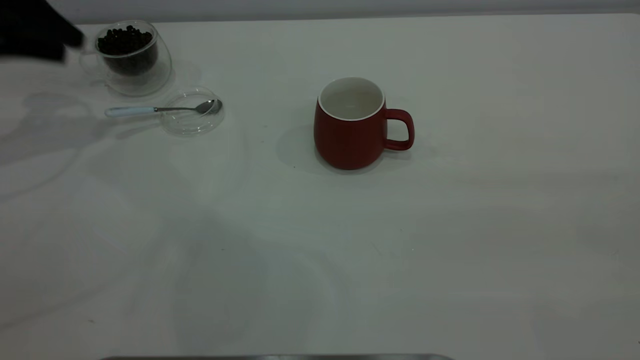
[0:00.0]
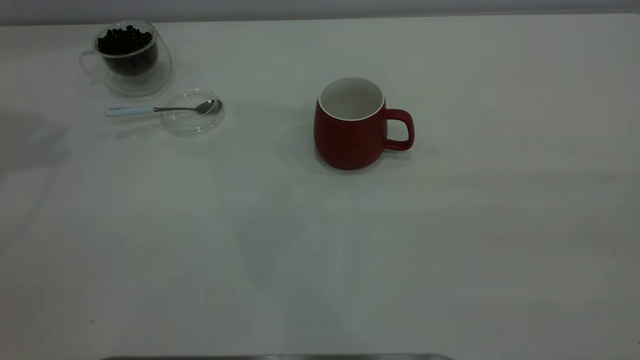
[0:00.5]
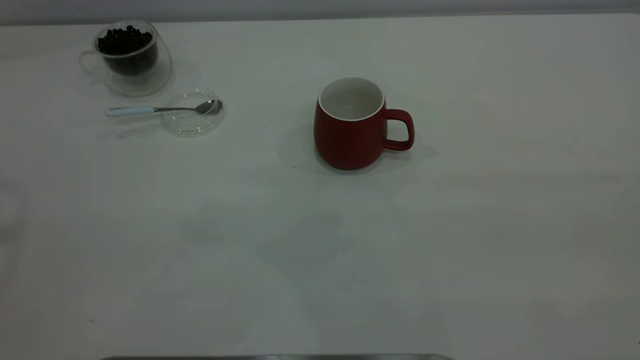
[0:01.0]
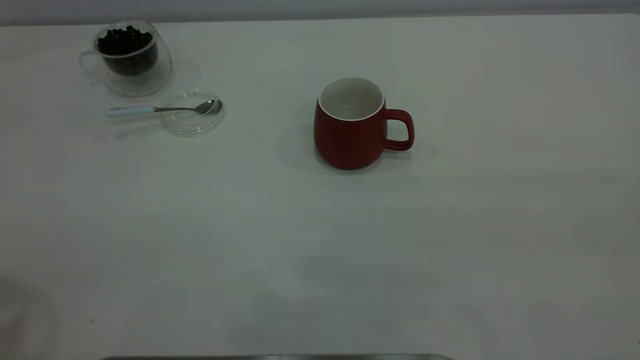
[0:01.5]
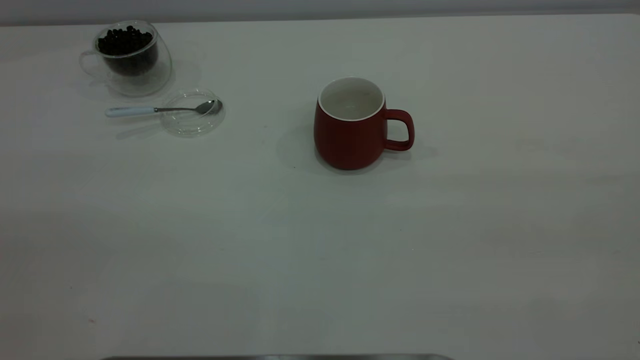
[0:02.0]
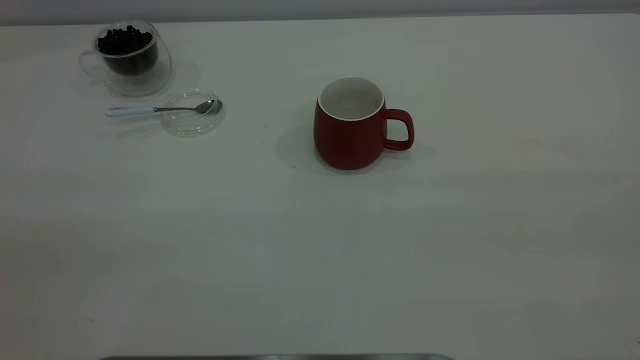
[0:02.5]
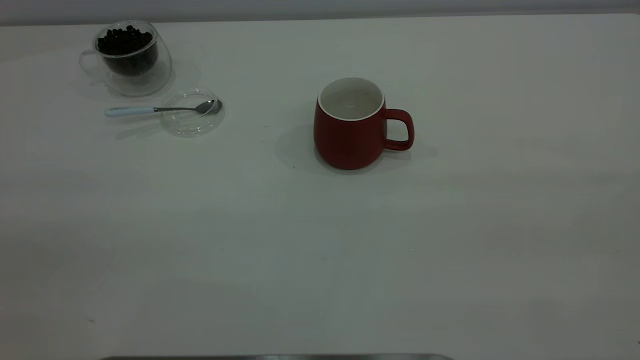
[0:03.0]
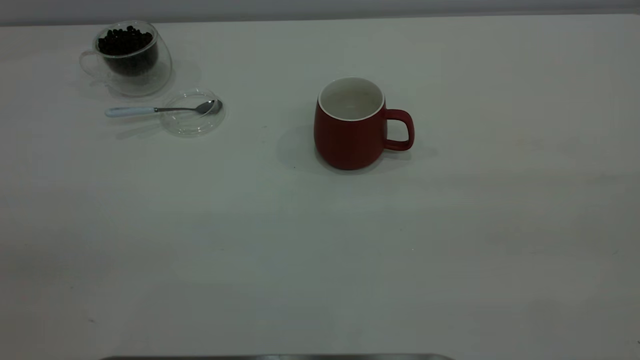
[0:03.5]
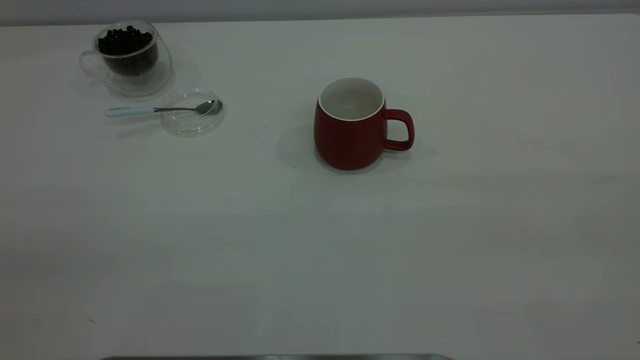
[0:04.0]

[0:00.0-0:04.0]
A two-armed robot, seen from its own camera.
Task of the whole recording: the right gripper place the red cup in the center of the table, the left gripper take the blue spoon from the cup lid and scoop out the coffee beans from the coffee cup and put them into the red cup, the left gripper put the spoon back into the cup lid.
0:00.0 to 0:02.0: The left gripper travels backward and upward by approximately 40 cm.

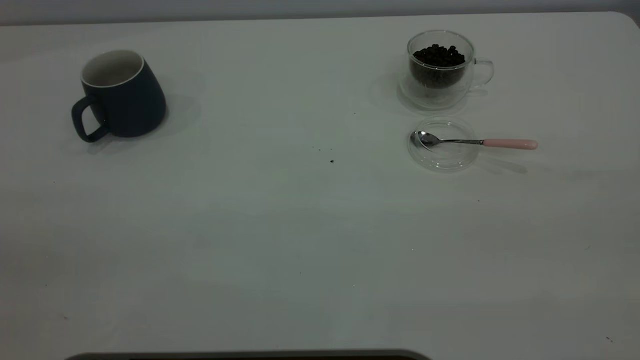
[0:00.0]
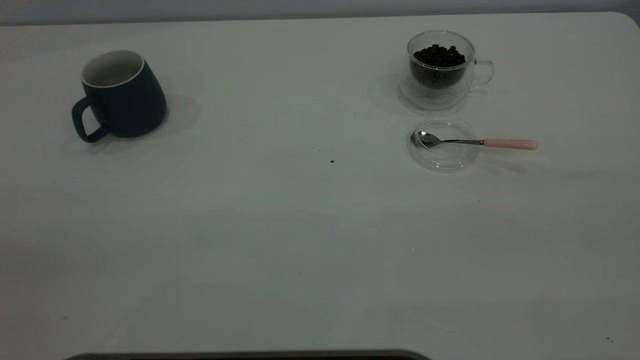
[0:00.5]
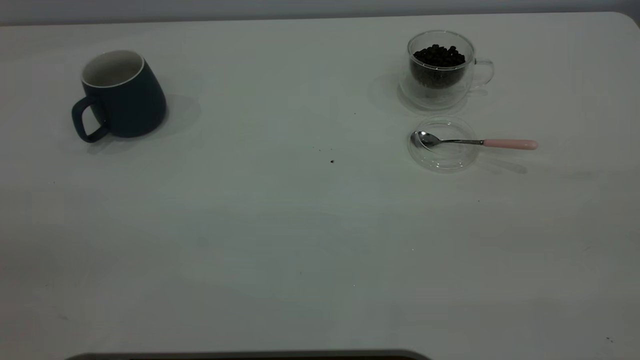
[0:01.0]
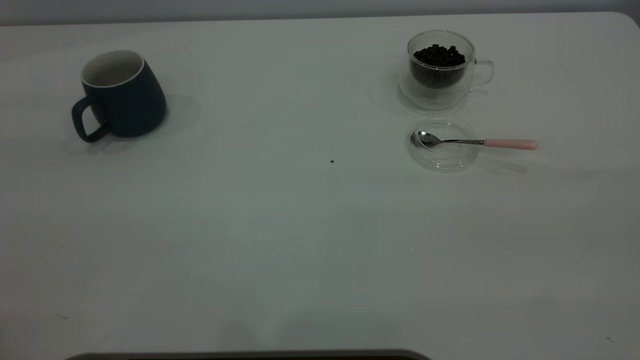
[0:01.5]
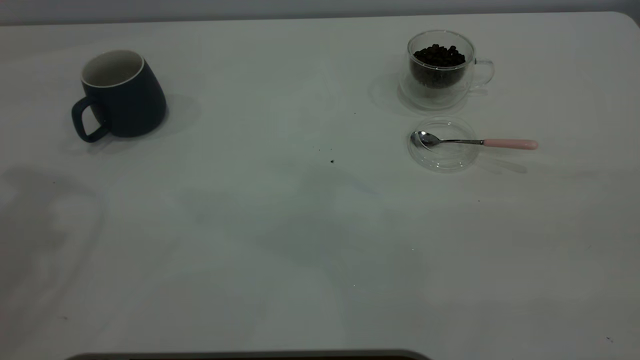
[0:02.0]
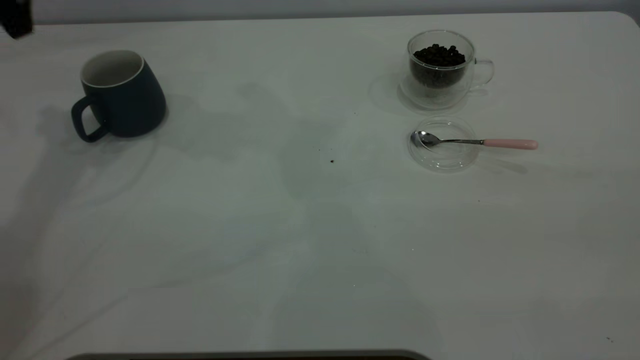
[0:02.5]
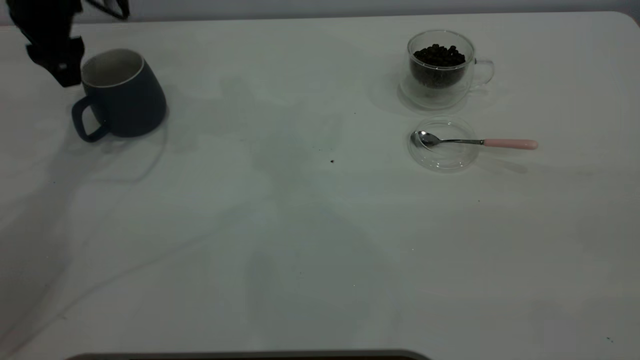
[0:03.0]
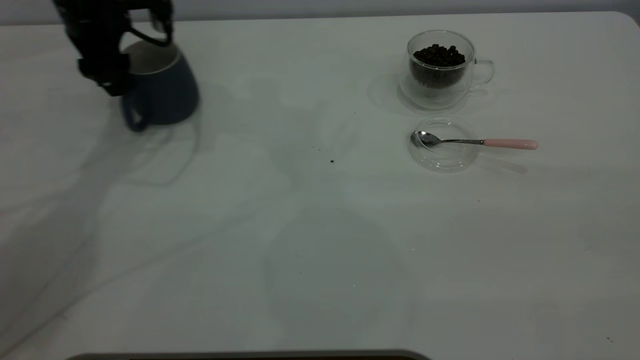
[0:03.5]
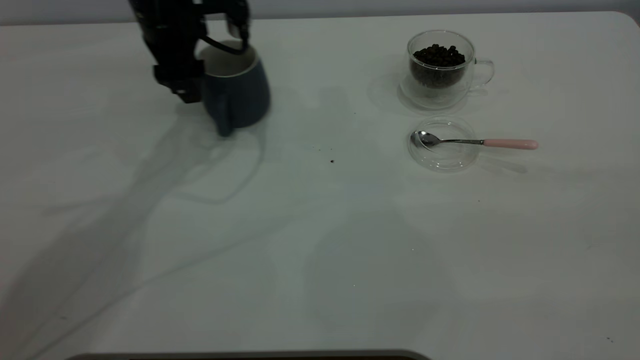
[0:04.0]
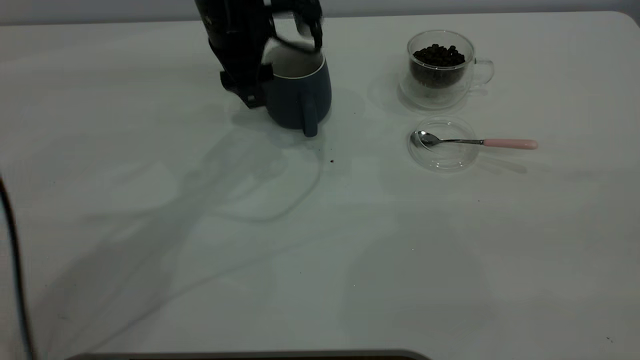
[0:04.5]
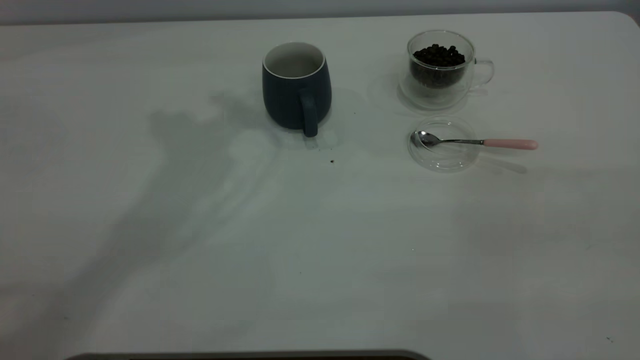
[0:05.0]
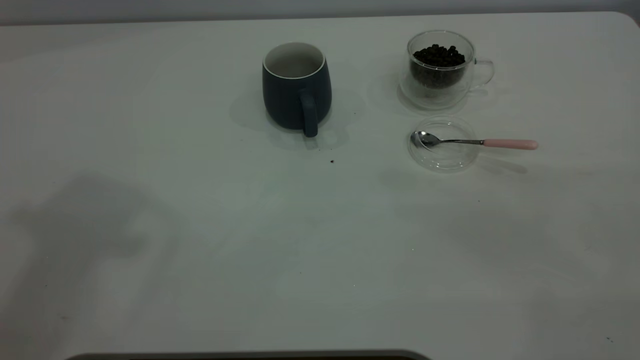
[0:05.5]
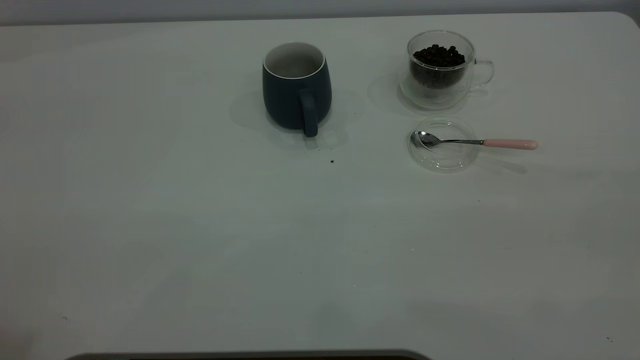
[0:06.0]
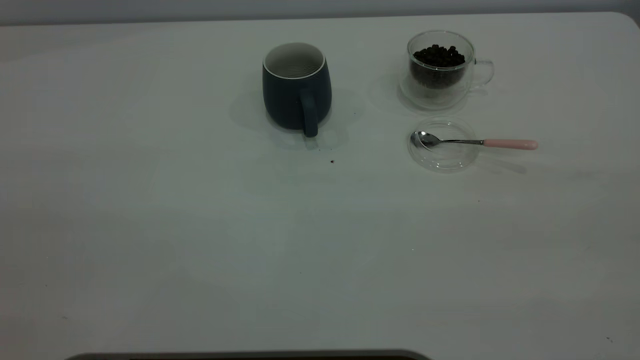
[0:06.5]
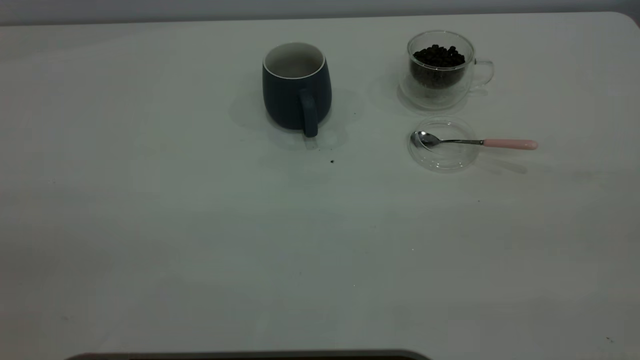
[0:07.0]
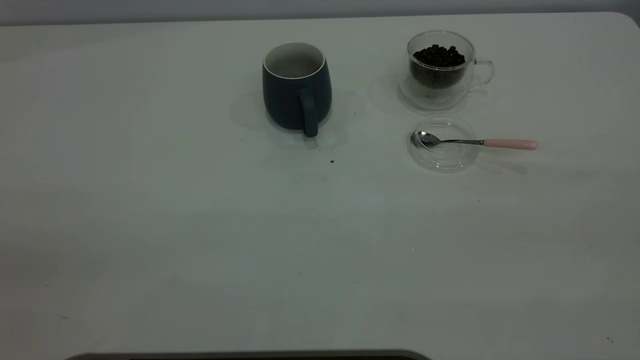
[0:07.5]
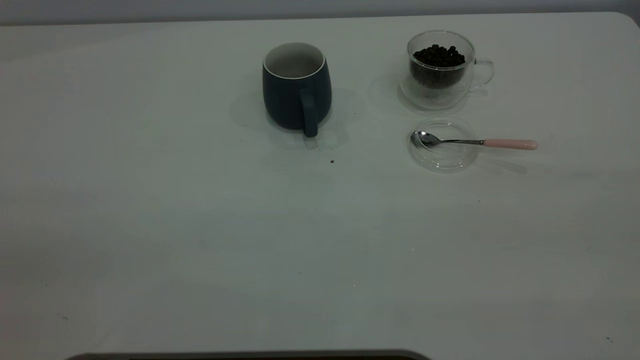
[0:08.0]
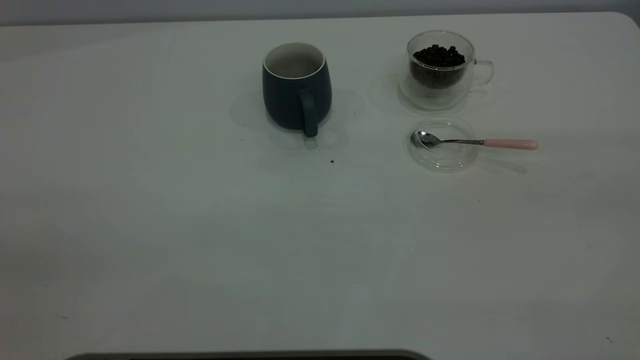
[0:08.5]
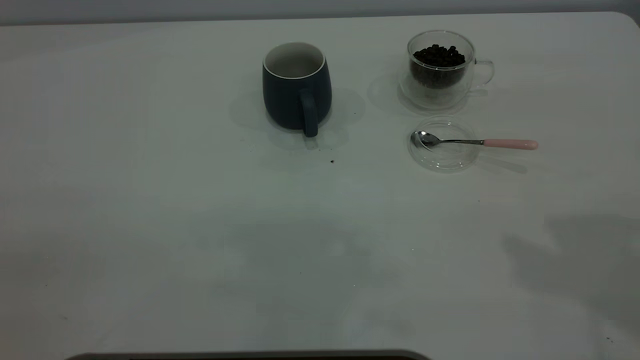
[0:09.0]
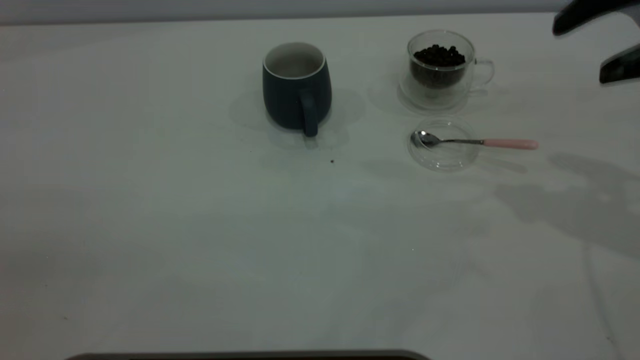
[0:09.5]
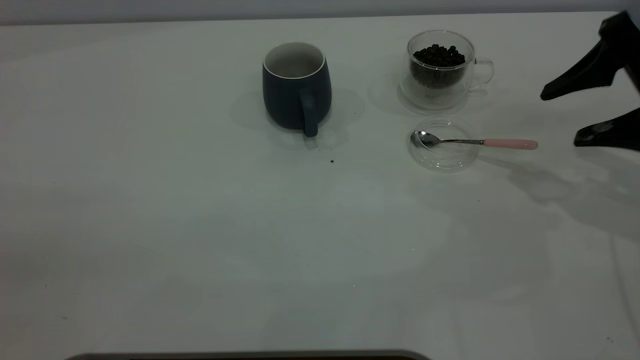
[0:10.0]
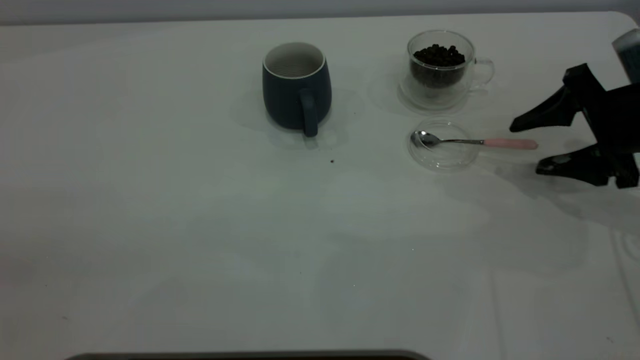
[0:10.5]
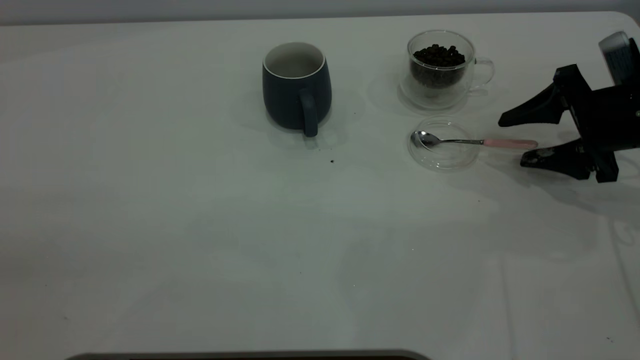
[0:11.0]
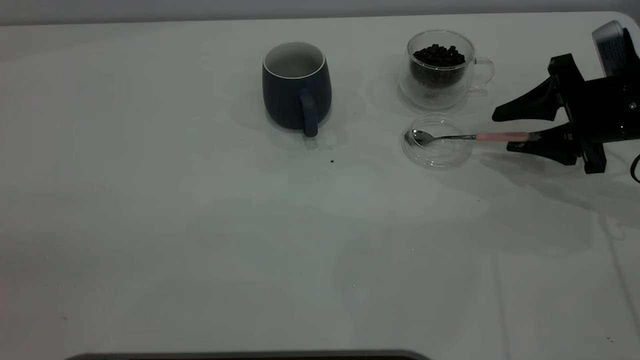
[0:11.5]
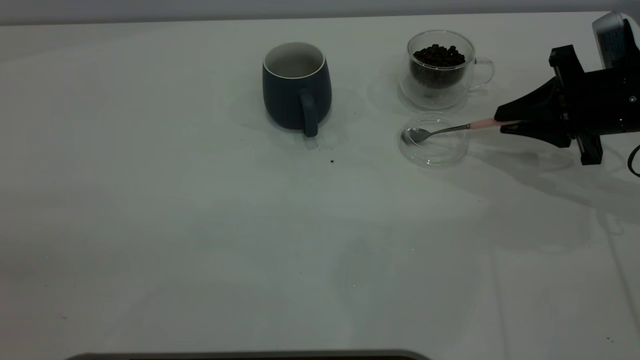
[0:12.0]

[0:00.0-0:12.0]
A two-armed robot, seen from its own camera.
Task of the whole recording: the left gripper place the grey cup in the center of the table, the right gripper take the pink spoon from the cup lid and scoop out the coffee beans from the coffee cup and put them into the grey cup, the right gripper put the spoon back into the cup lid.
Step, 0:00.0 to 0:04.5: Move the cup to the center of view.
0:02.0 to 0:04.0: The left gripper heads downward, forward and to the right, covering roughly 30 cm.
0:04.0 to 0:06.0: The left gripper heads backward and upward, covering about 50 cm.
0:08.0 to 0:10.0: The right gripper travels forward and downward by about 40 cm.
0:10.0 to 0:12.0: The right gripper shifts roughly 5 cm downward, and closes up.

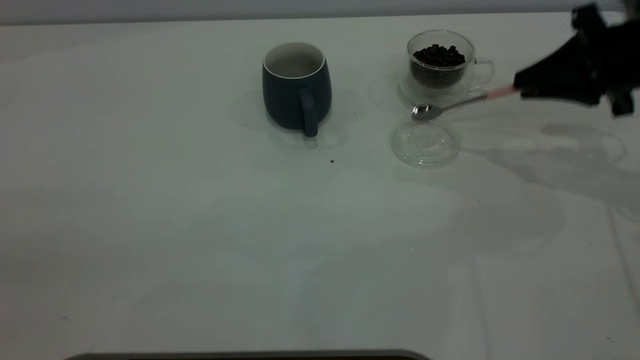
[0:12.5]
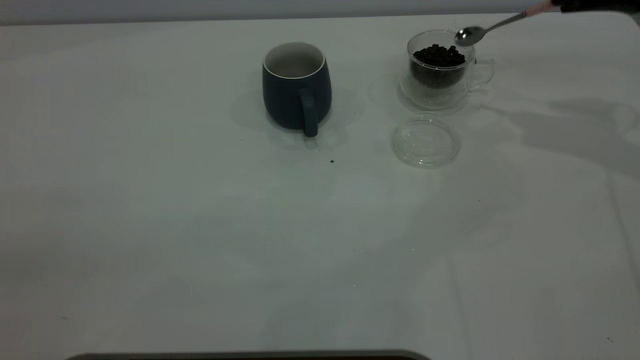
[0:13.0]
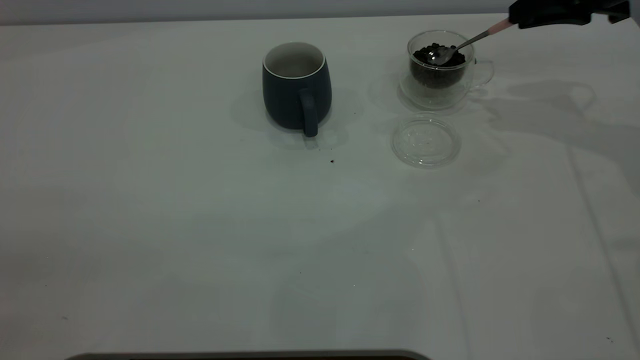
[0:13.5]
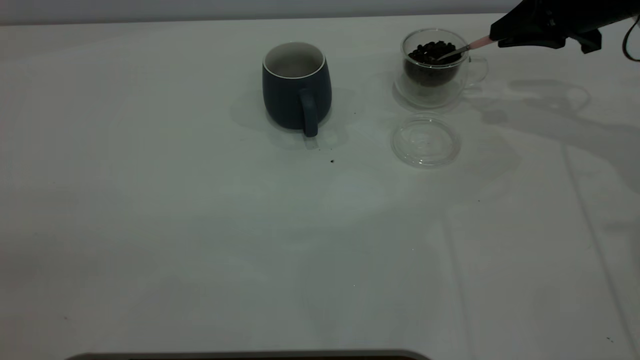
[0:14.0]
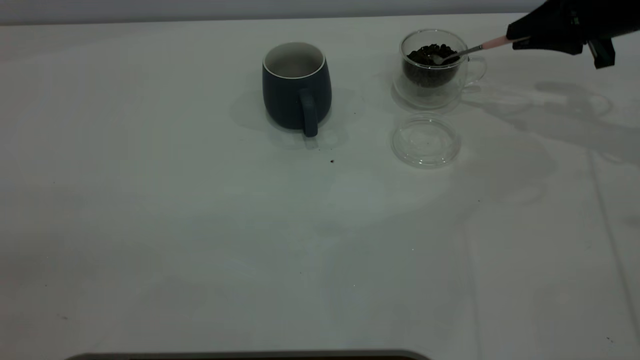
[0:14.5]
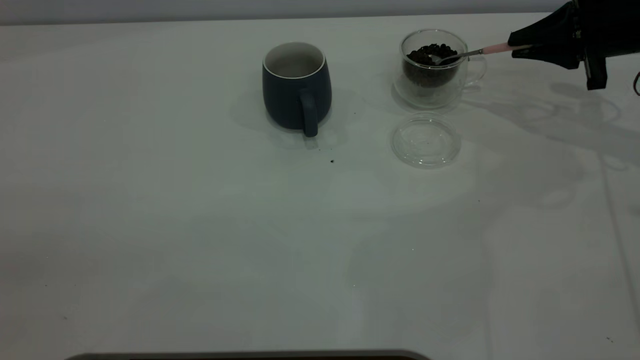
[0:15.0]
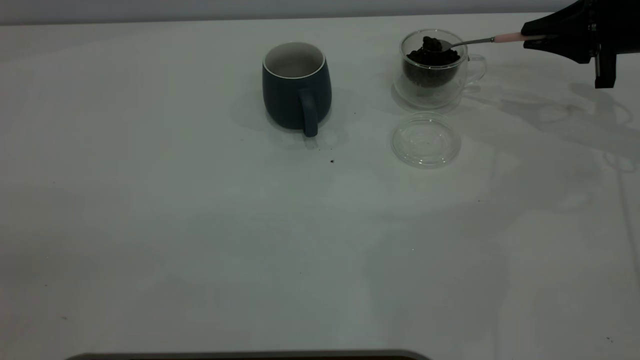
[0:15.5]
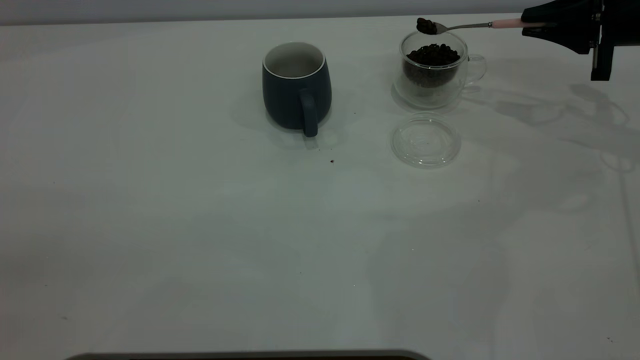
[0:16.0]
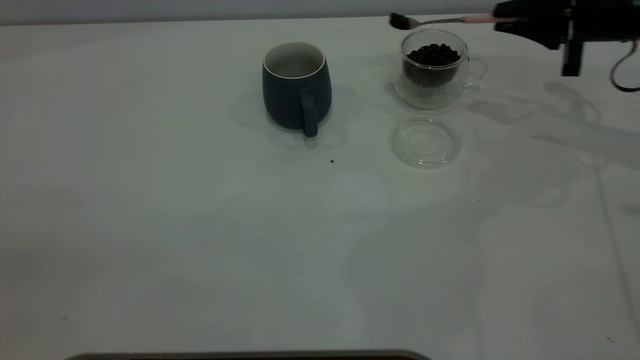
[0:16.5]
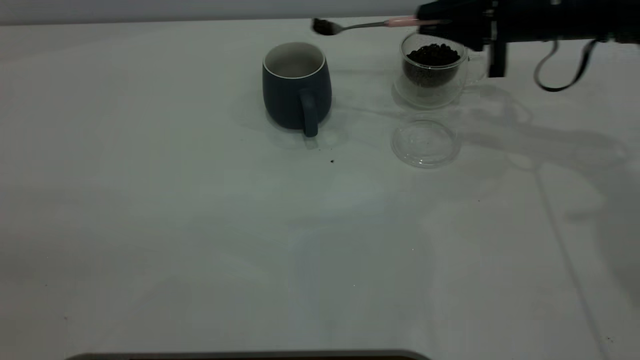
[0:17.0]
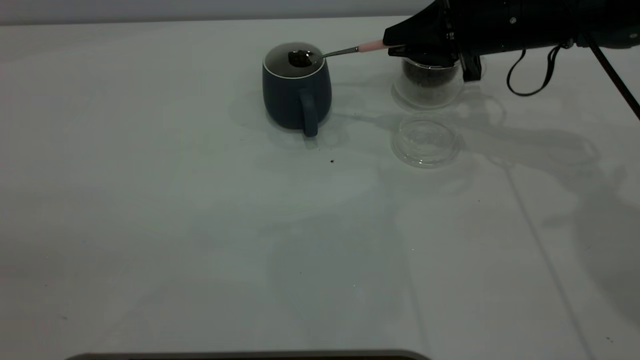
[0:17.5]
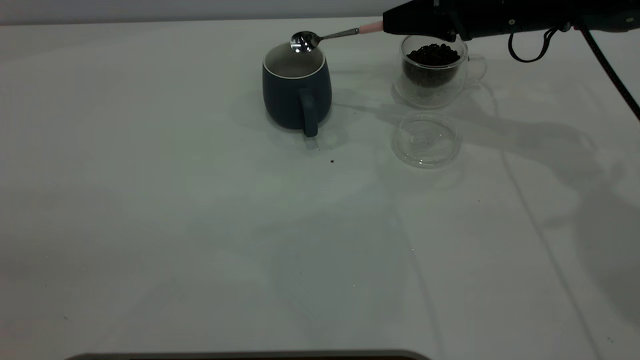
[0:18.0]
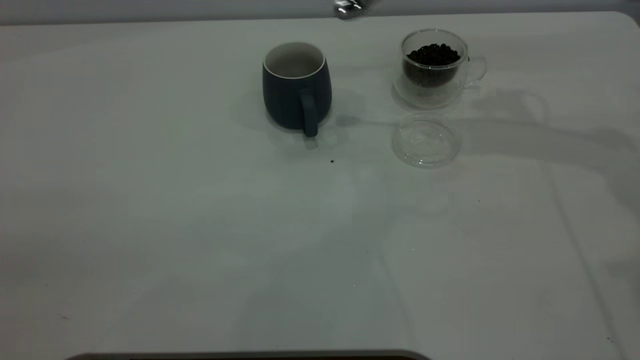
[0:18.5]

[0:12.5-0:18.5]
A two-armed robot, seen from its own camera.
Task of the whole recording: the left gripper place the grey cup in the center of the table, the right gripper take the pink spoon from the cup lid and scoop out the coffee beans from the coffee cup and put them into the grey cup, the right gripper put the spoon back into the cup lid.
Step, 0:13.0 to 0:18.0: Scoop a spoonful of beans into the cup.
0:12.5 to 0:14.5: The right gripper moves forward, roughly 10 cm.
0:16.5 to 0:18.5: The right gripper moves upward, roughly 10 cm.
